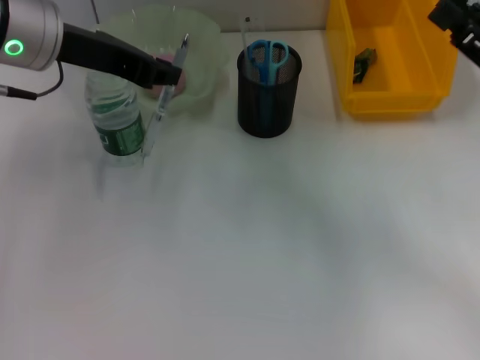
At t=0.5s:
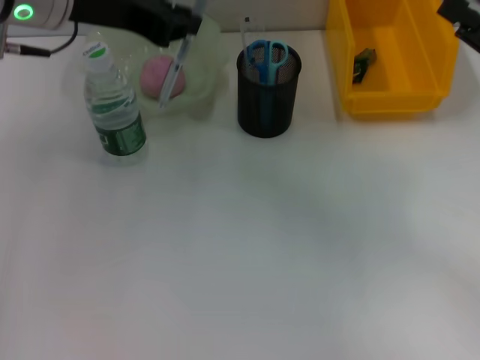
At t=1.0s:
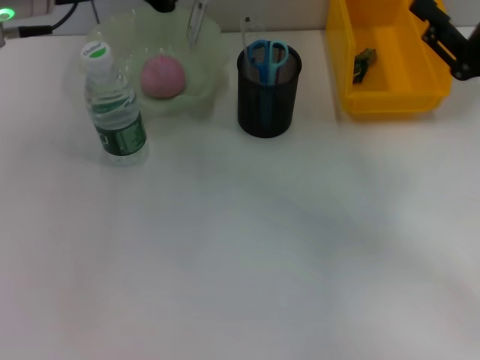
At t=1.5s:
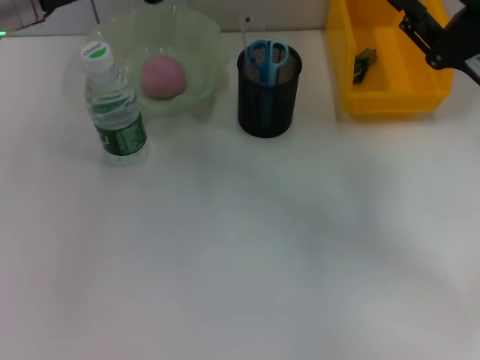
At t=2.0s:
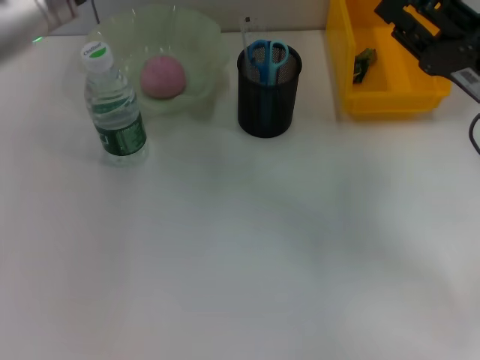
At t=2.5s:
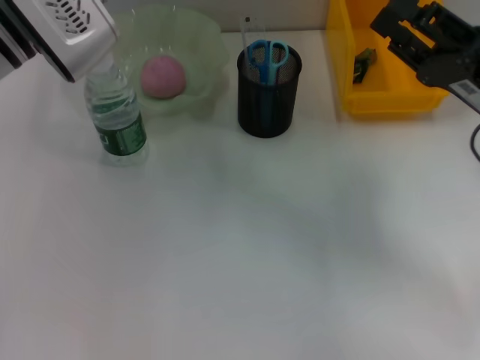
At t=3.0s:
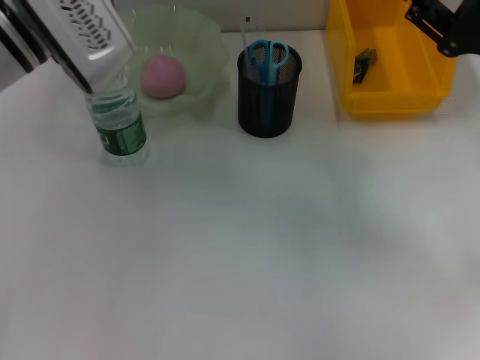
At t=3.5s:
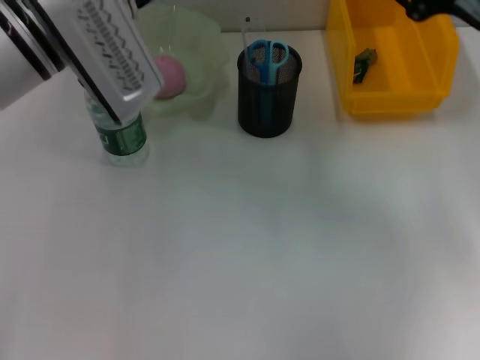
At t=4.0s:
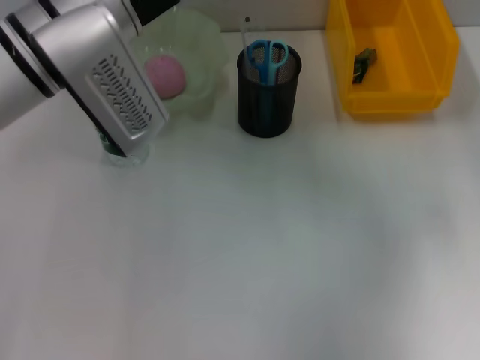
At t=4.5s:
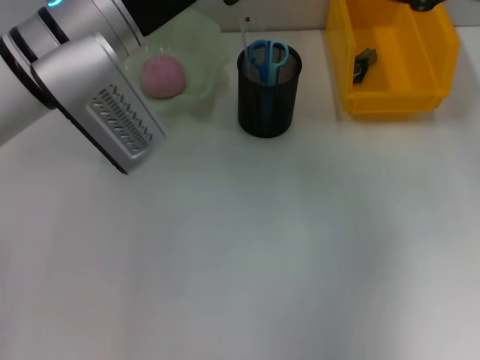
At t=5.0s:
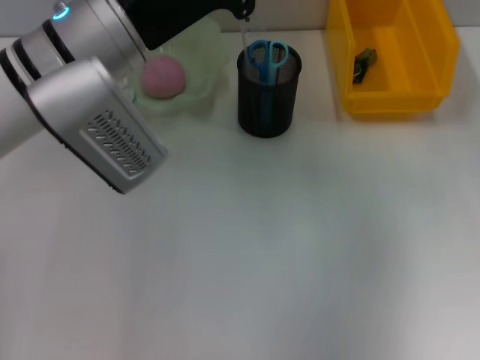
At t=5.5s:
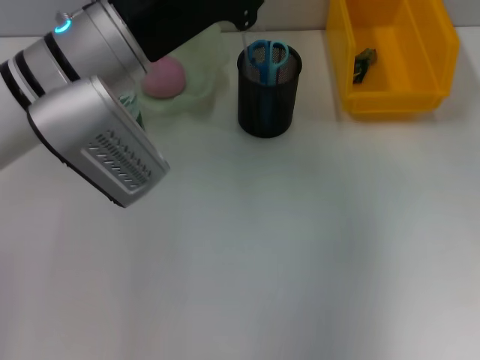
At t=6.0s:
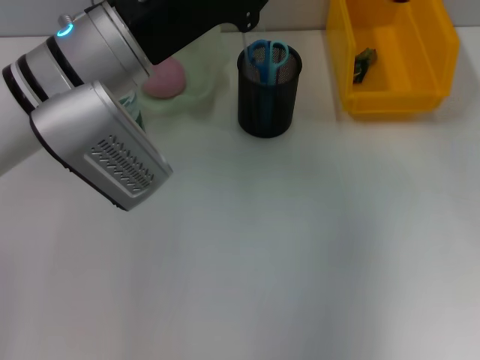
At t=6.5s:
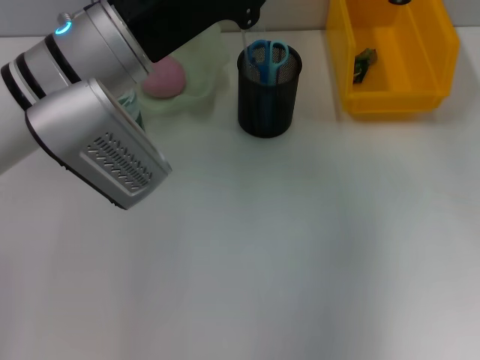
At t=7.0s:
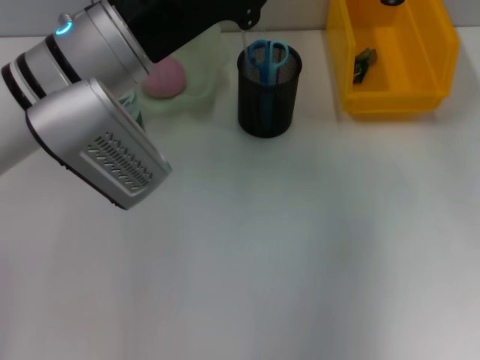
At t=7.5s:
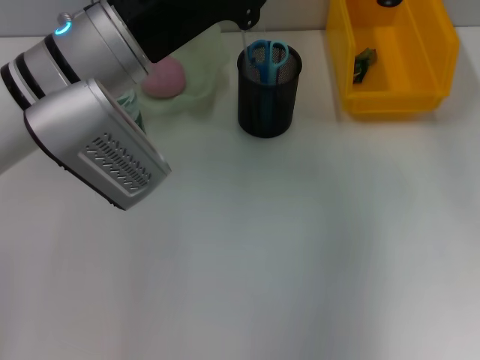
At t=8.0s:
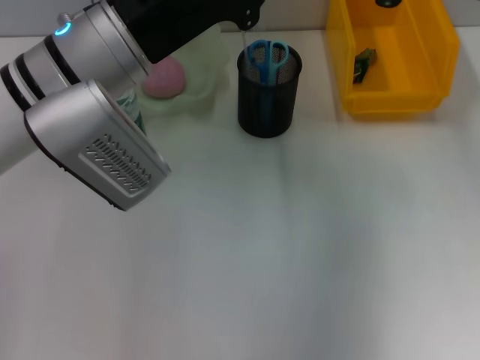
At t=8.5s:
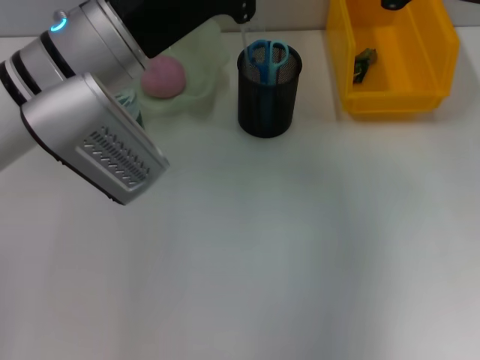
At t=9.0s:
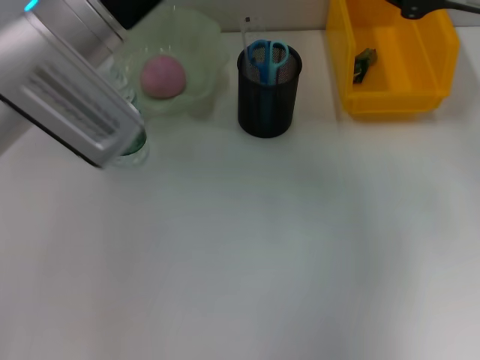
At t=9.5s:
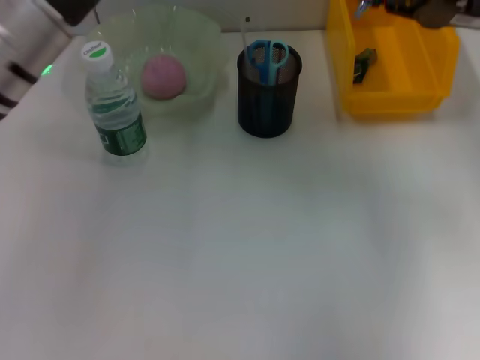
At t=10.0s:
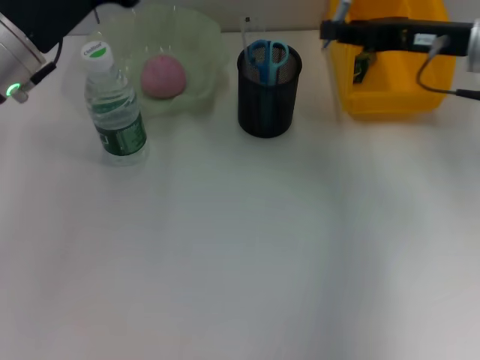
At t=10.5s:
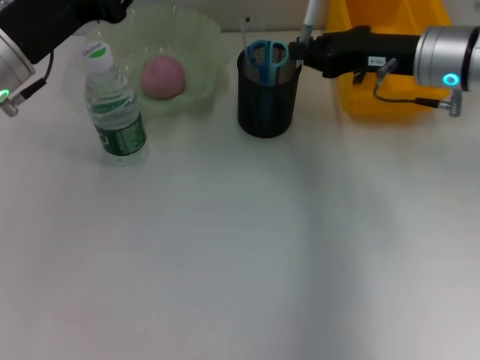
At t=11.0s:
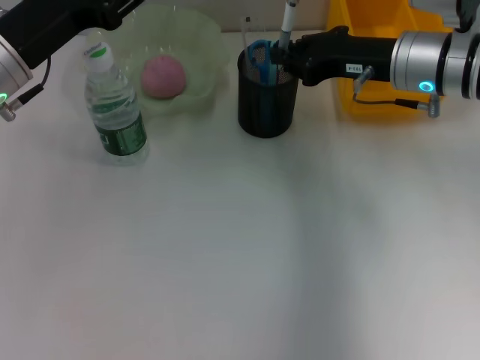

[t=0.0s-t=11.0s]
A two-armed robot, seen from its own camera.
Step, t=0.0s to t=9.0s: Pass the gray spring-action pen from the left hand to the right hand.
t=2.0s to t=3.5s: The right gripper moves upward, some 5 cm.
t=3.5s to t=5.5s: The right gripper goes about 5 cm upward.
t=5.5s to t=9.0s: The grippers stay close to where they were, moving slightly.
t=9.0s to t=11.0s: The left gripper shifts approximately 10 cm to the left, and opens its fingers, while the right gripper heads downward and to the left, covering about 10 cm.

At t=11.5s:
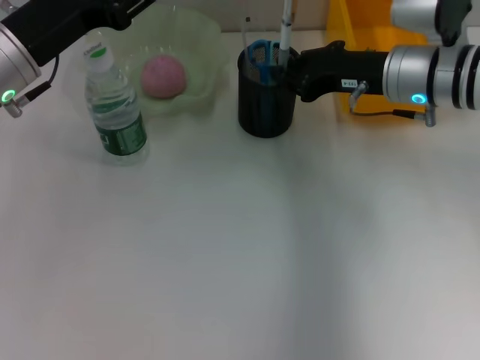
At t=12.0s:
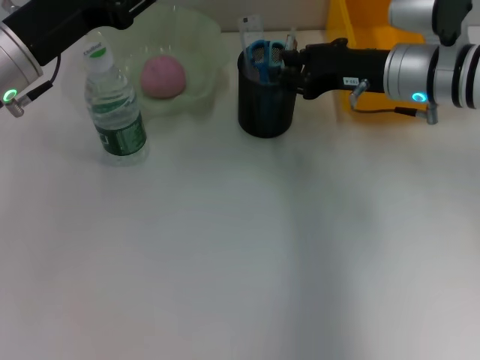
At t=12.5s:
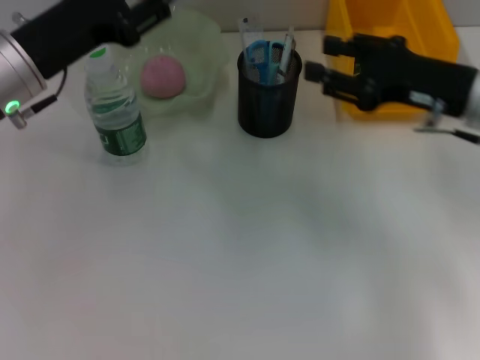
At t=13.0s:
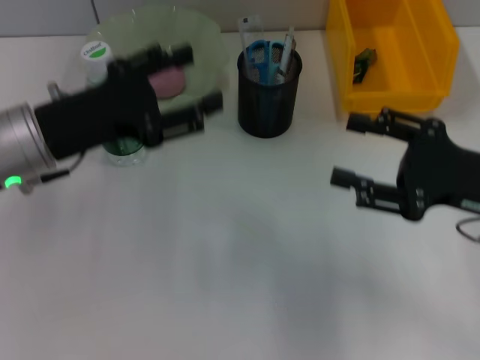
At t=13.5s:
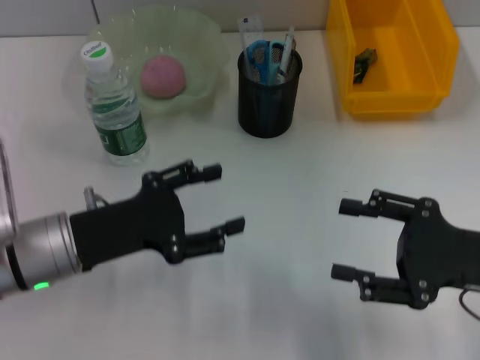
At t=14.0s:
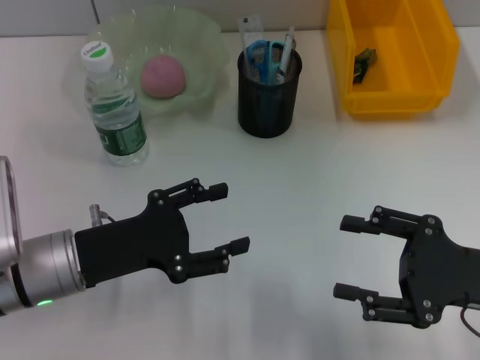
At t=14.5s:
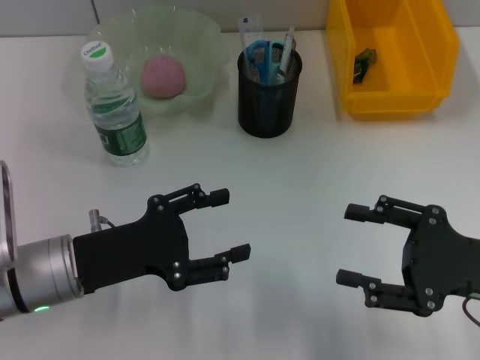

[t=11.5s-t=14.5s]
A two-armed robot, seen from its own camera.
t=11.5s to t=13.0s: The right gripper is displaced backward and to the right by some 15 cm, and opens its fingers. Meanwhile the left gripper moves about 5 cm.
t=13.0s to t=14.5s: The right gripper shifts by some 5 cm, while the left gripper travels downward and backward by some 10 cm.

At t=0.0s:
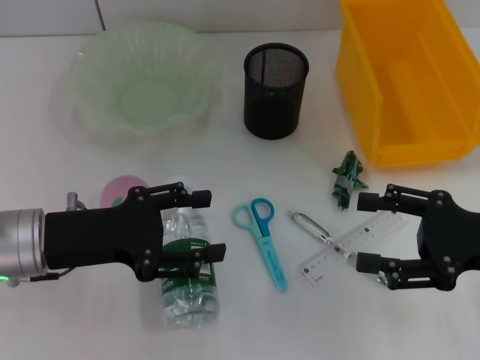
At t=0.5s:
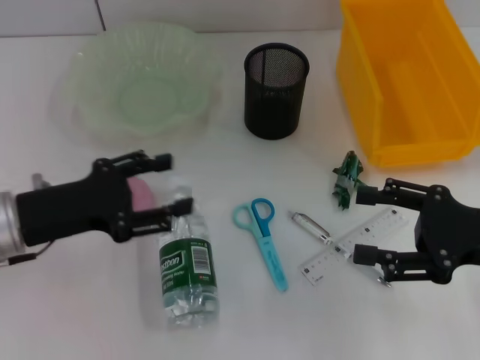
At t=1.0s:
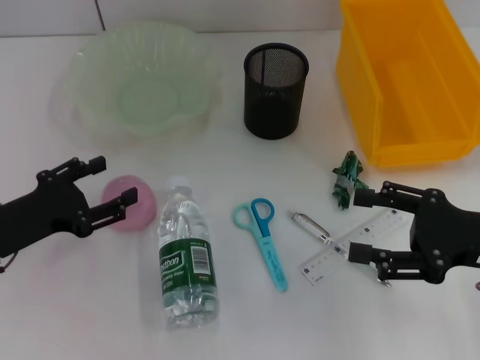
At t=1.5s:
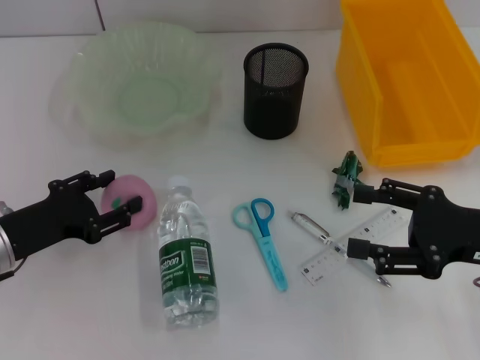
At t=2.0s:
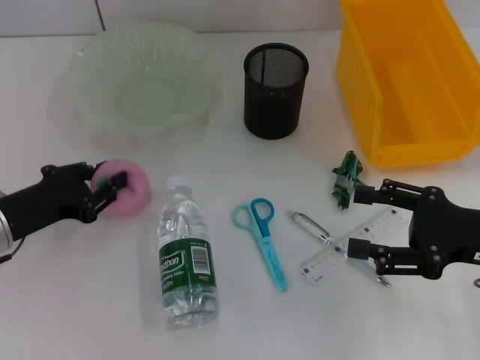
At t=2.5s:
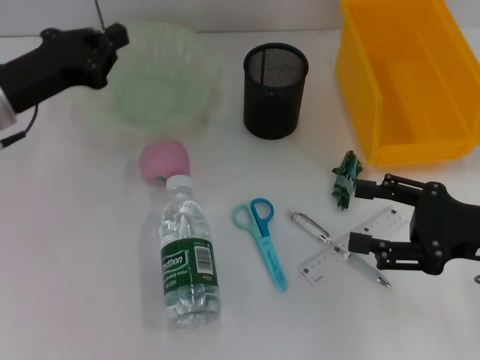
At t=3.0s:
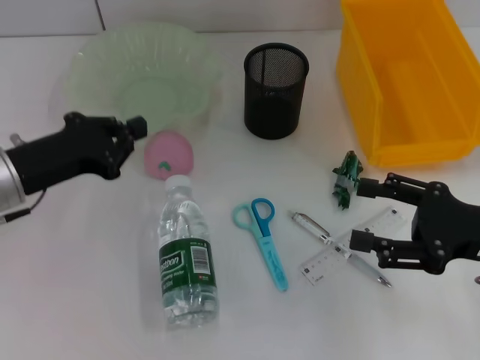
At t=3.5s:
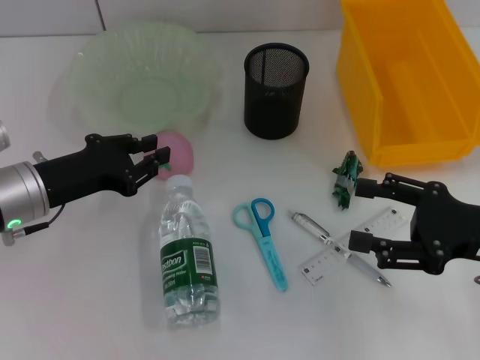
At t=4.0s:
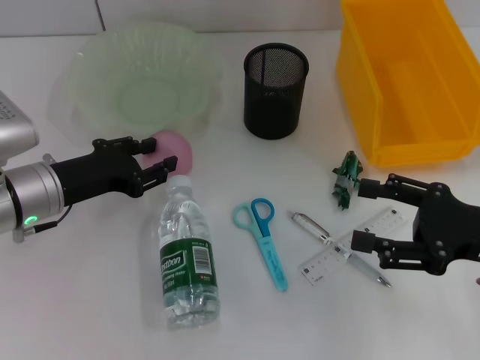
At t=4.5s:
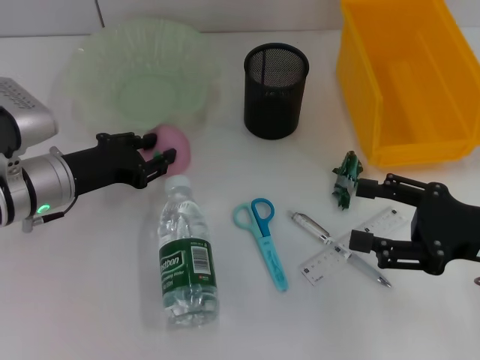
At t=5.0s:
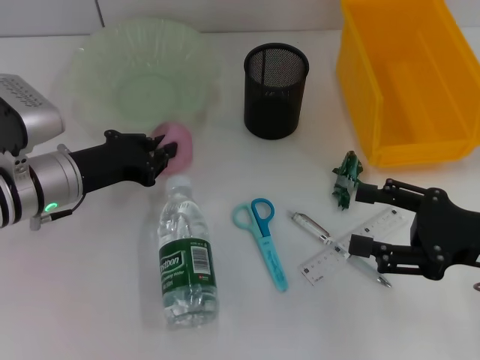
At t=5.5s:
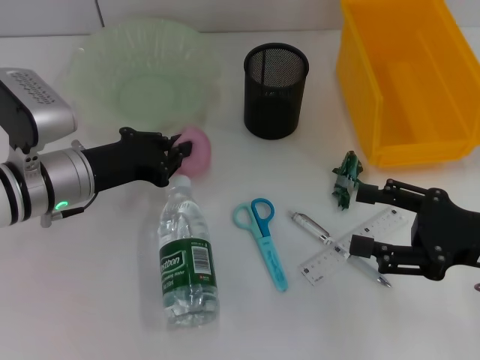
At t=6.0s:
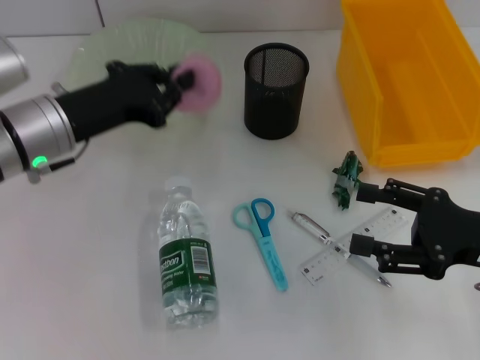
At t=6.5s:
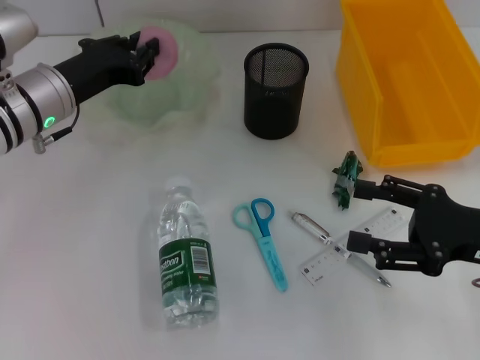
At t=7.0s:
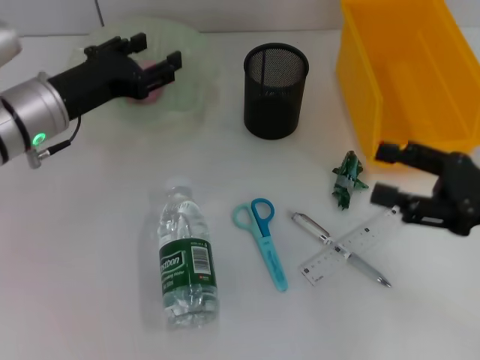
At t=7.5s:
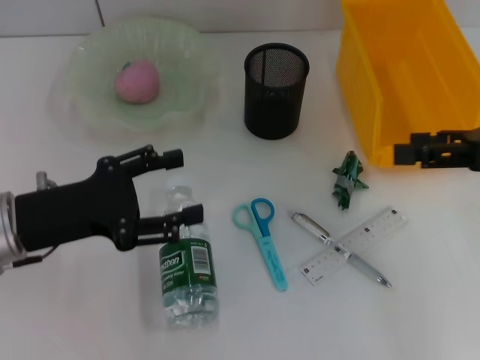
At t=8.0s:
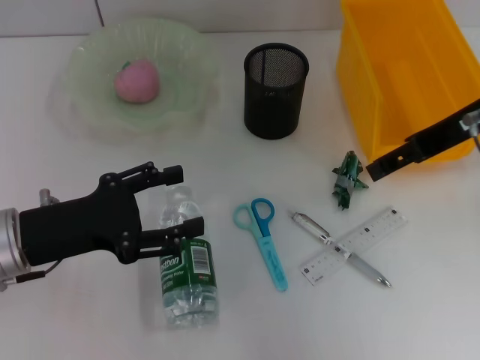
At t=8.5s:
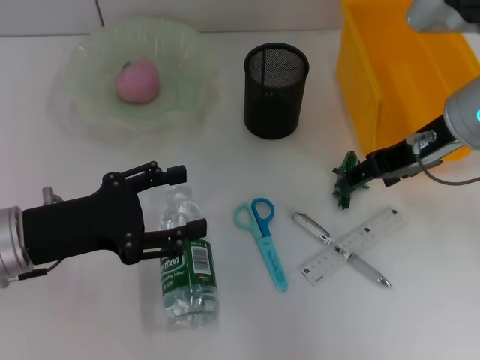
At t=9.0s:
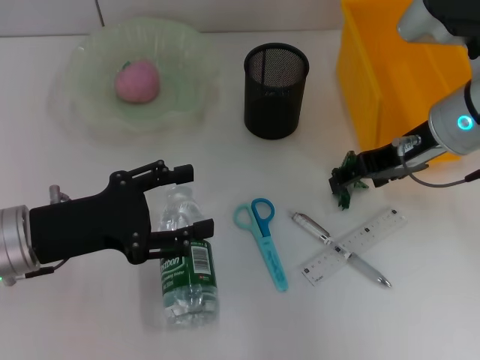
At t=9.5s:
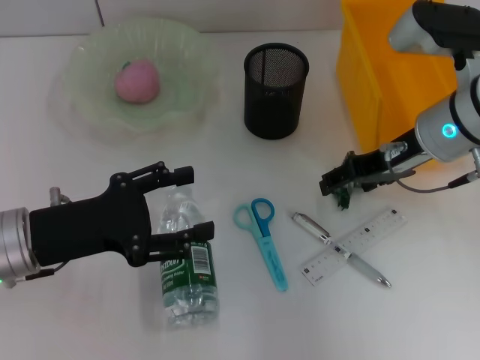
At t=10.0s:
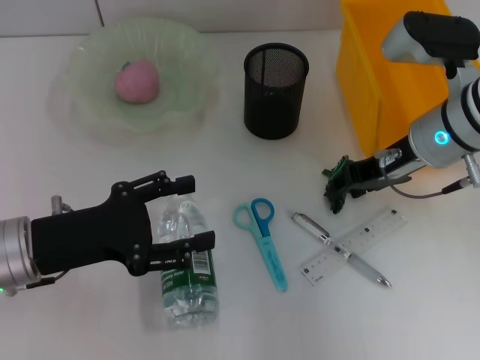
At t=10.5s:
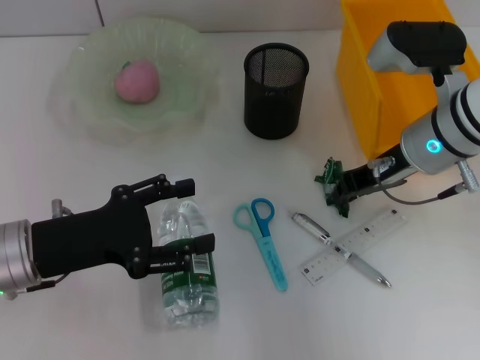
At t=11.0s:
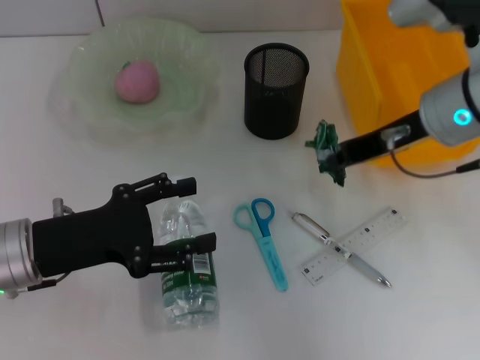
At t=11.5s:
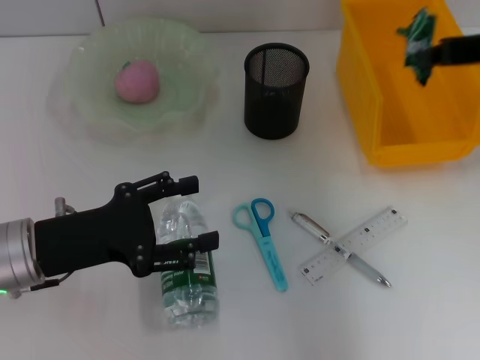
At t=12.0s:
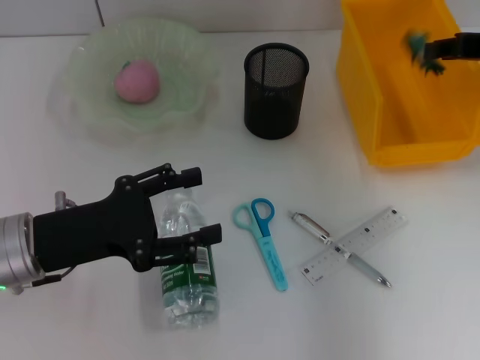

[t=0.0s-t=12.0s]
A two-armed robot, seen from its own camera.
Step, t=0.0s to t=5.0s: Grab the peach with the left hand.
Step, t=5.5s to t=6.5s: Place the peach into the fruit bowl with the left hand.
Step, t=7.0s to t=10.0s: Grab the plastic with the right hand.
t=0.0s to t=2.0s: The left gripper is displaced to the left by approximately 5 cm, and closes up.
t=2.0s to t=4.0s: The left gripper goes upward and returns, about 10 cm each way, and closes, then opens again.
t=4.0s to t=6.0s: The left gripper moves upward, some 5 cm, and closes its fingers.
t=6.0s to t=8.0s: The right gripper heads upward, forward and to the left, covering approximately 20 cm. The left gripper travels backward by some 10 cm, and opens its fingers.
t=8.0s to t=10.0s: The right gripper is displaced downward by roughly 10 cm.
t=10.0s to t=12.0s: The right gripper moves to the right and upward, roughly 15 cm, and closes.
